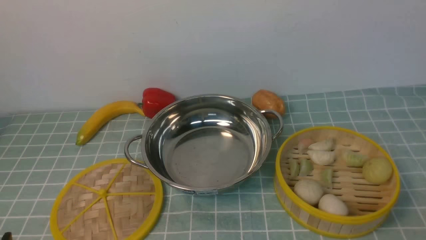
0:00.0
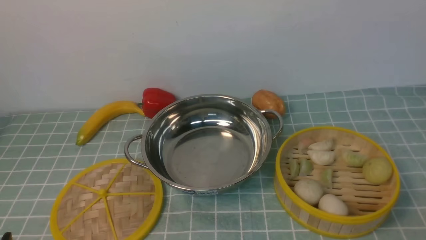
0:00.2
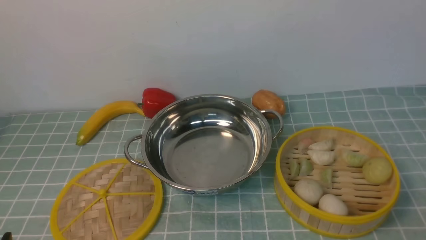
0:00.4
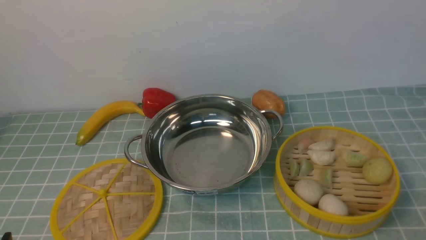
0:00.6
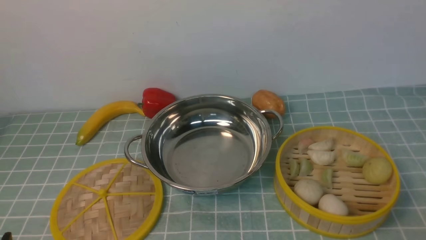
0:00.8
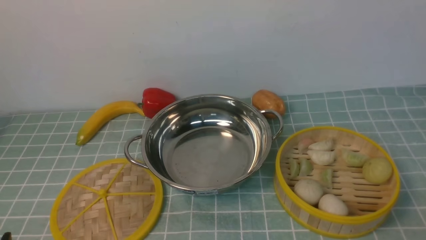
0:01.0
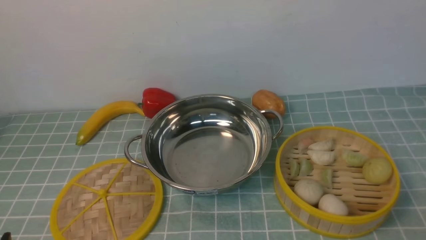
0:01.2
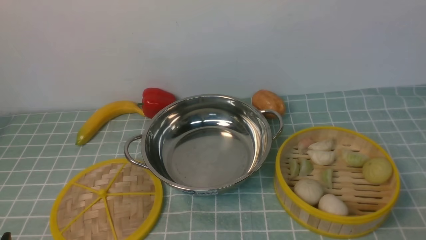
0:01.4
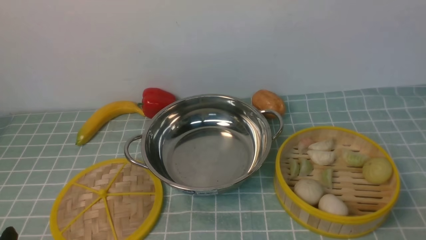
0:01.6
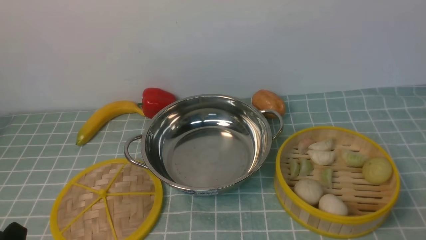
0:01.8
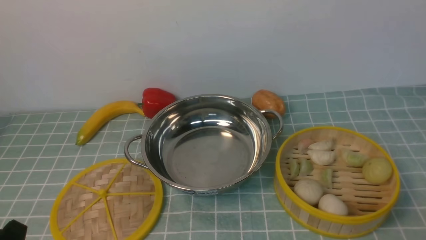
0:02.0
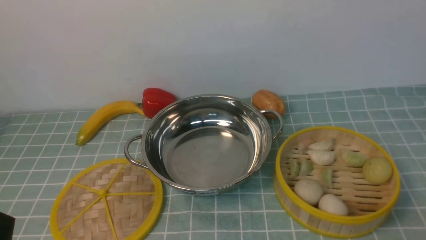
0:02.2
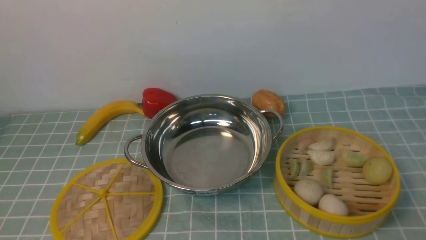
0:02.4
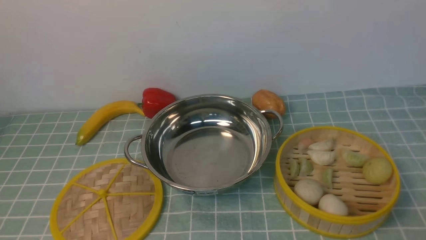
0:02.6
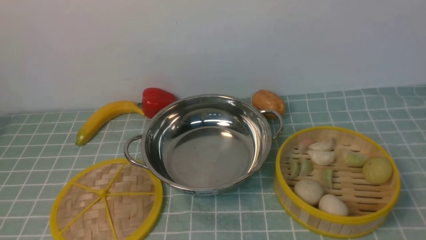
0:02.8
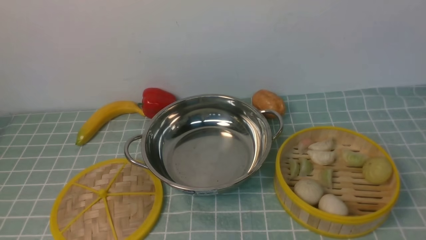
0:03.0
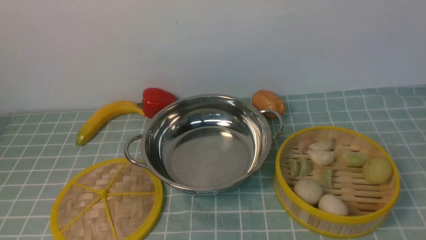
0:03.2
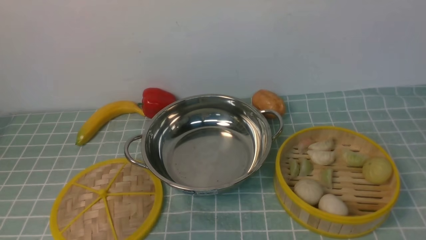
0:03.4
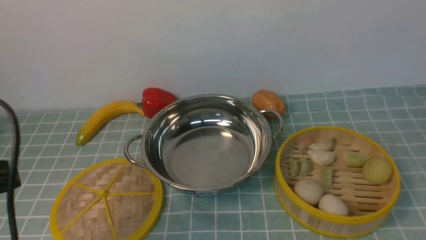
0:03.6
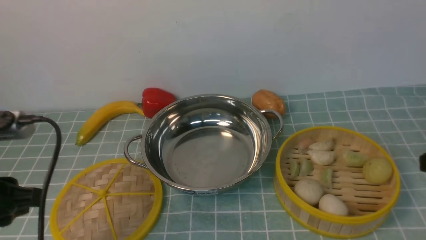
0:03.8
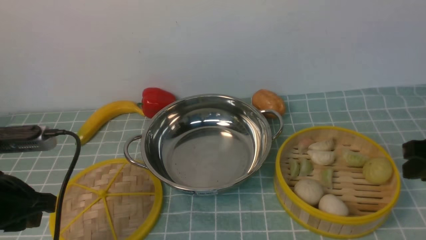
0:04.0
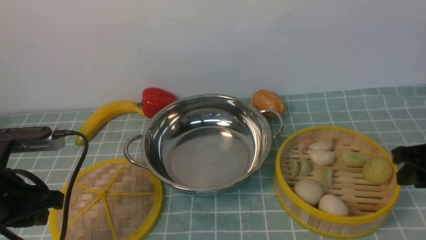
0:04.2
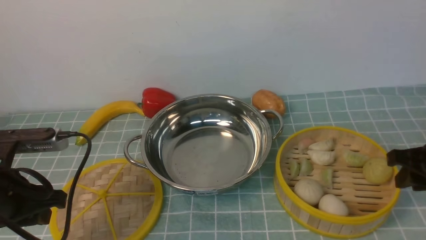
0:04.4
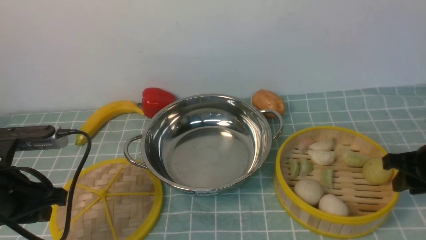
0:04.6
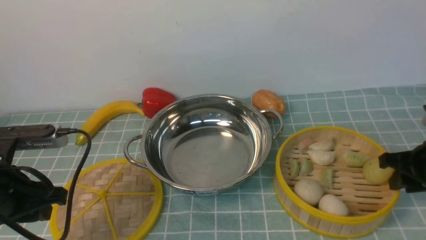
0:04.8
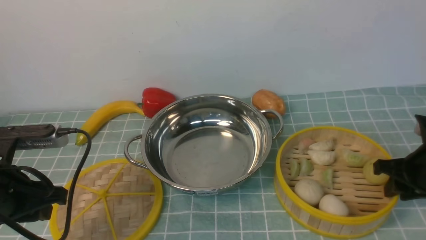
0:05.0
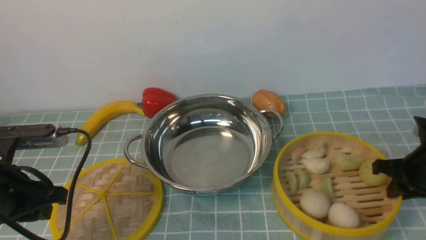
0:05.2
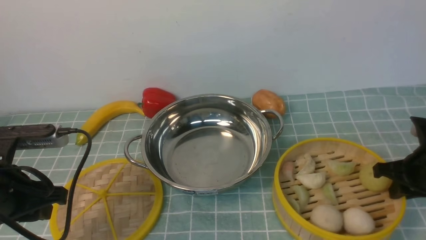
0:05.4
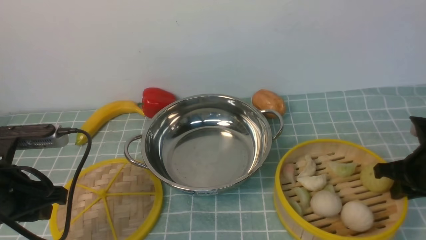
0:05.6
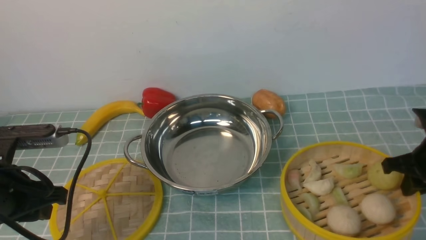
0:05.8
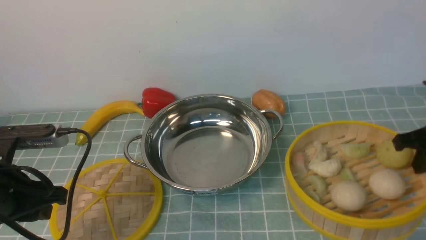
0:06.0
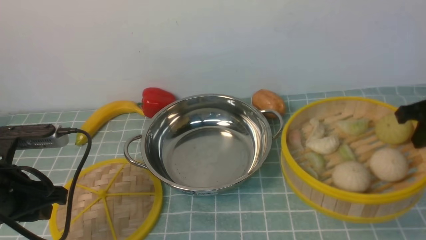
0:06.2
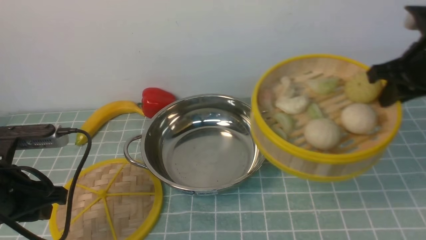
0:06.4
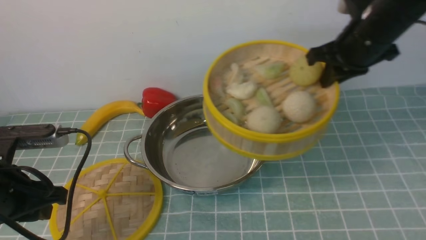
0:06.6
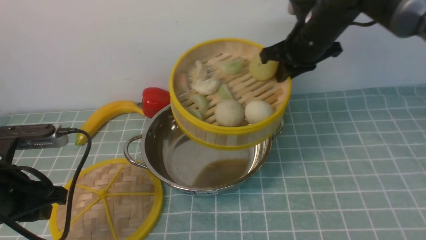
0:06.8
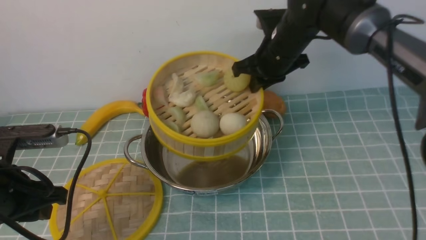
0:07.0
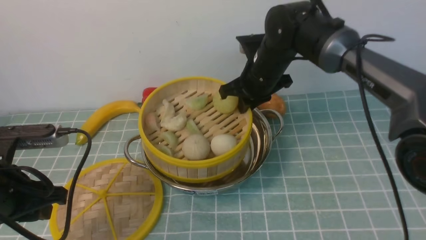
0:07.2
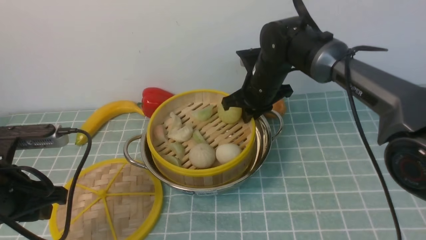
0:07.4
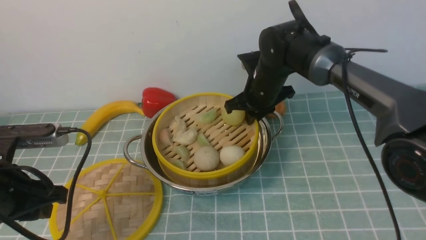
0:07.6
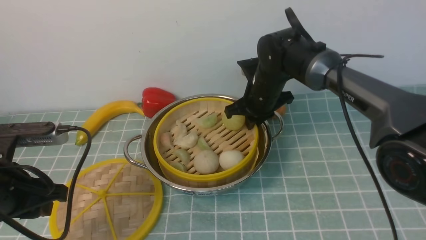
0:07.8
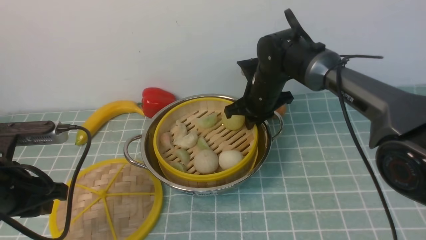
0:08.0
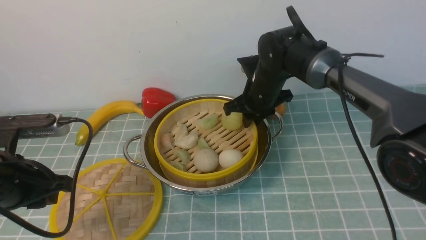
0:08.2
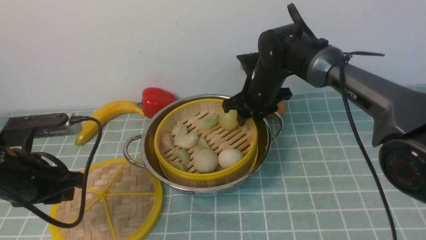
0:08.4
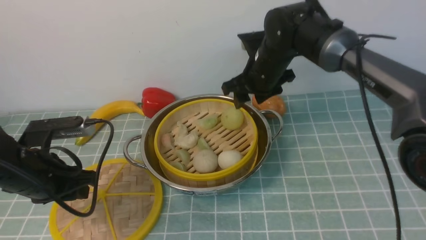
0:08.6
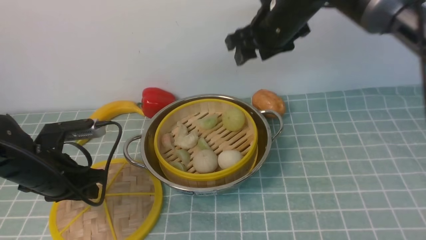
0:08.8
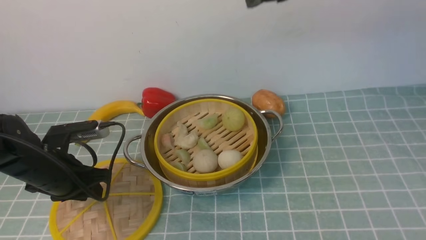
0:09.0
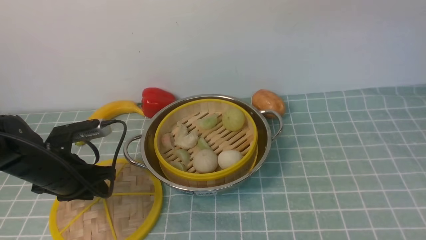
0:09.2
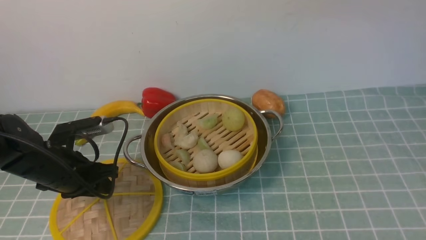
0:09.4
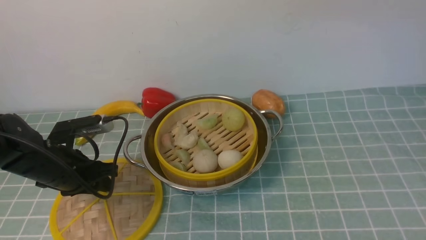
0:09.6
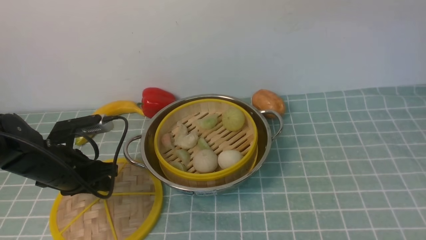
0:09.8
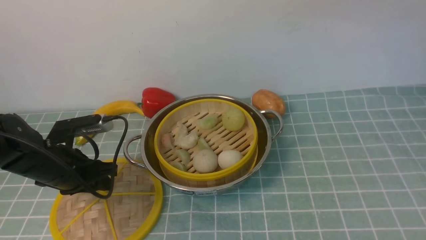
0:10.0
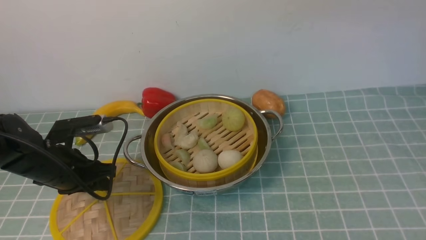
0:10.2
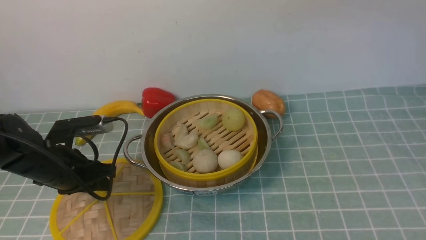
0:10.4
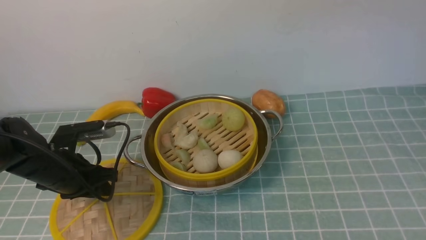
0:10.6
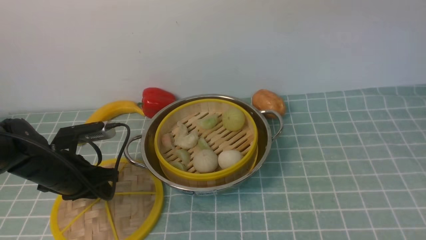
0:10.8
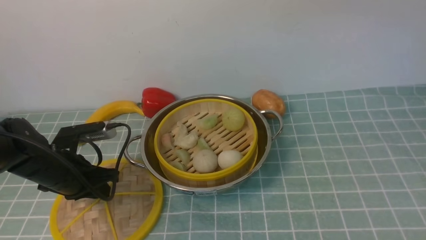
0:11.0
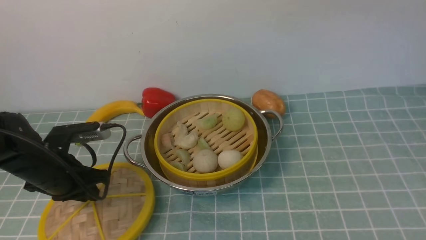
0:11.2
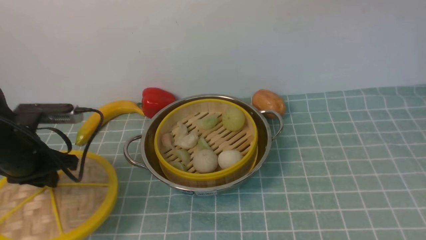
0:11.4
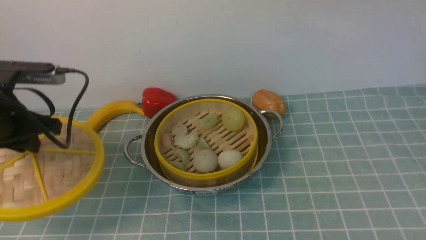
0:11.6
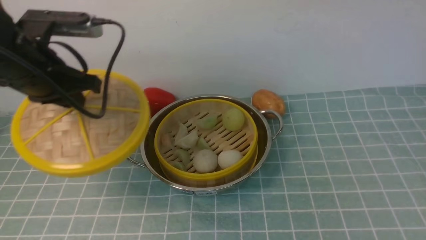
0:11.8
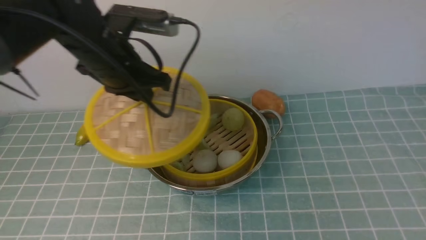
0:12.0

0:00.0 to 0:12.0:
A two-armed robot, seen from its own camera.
Task of the whole recording: place the steamer in the pot on the blue tablecloth, and put the lid on the steamer.
Step, 0:00.0 to 0:05.8: use the right arm to lift the steamer closest to it.
Step, 0:06.0 to 0:09.0: use the right arm to put the steamer into the iron steamer pot in the middle.
Step, 0:09.2 to 0:11.6: use the left arm to lift the lid of the steamer.
0:03.0 to 0:04.4: The grippers both shift forward by some 20 cm.
0:04.4 to 0:06.0: The right gripper closes up.
0:06.0 to 0:07.6: The right gripper heads to the left and forward, covering some 30 cm.
0:07.6 to 0:09.0: The right gripper moves upward, roughly 20 cm, and opens up; the left gripper goes roughly 10 cm forward and downward.
0:10.4 to 0:12.0: The left gripper shifts about 15 cm upward and to the right. Meanwhile the right gripper moves backward, upward and to the right, roughly 10 cm.

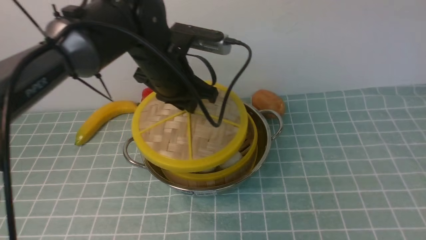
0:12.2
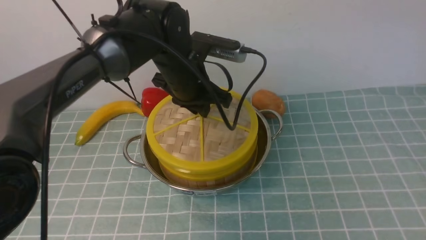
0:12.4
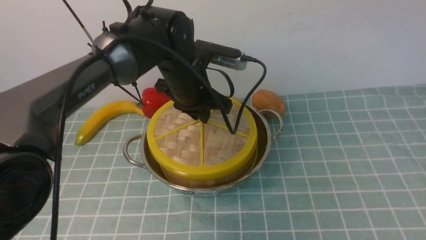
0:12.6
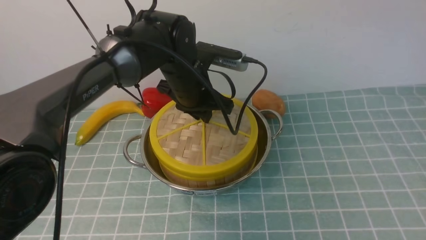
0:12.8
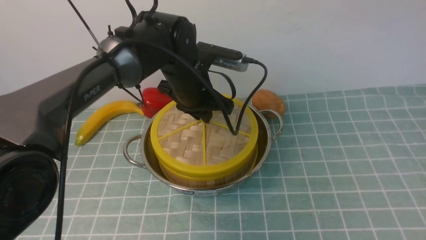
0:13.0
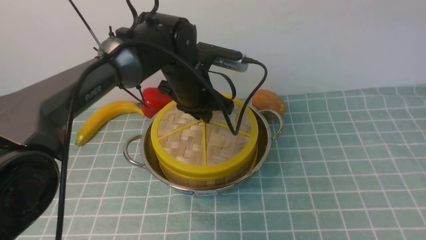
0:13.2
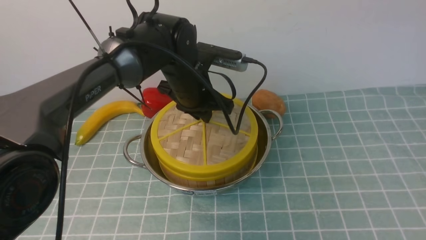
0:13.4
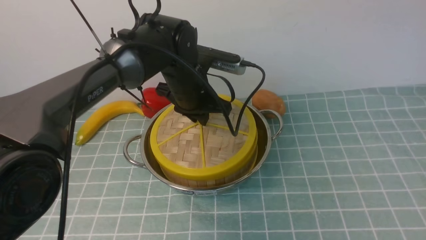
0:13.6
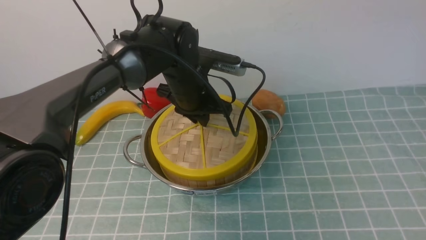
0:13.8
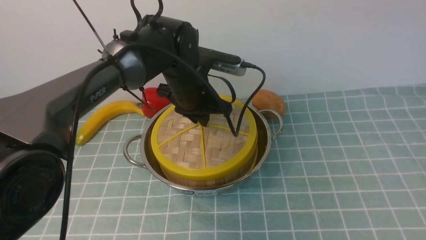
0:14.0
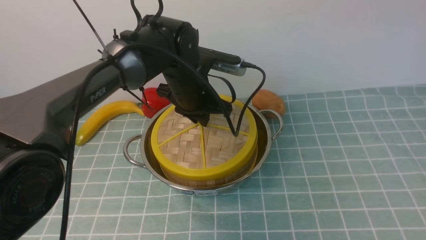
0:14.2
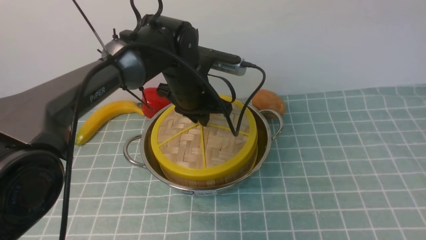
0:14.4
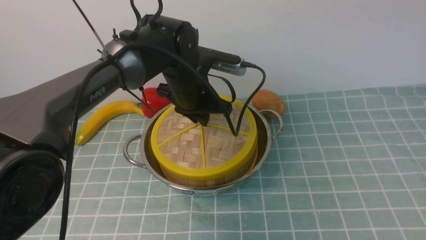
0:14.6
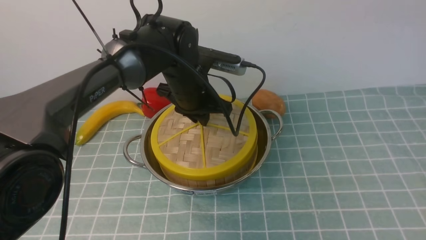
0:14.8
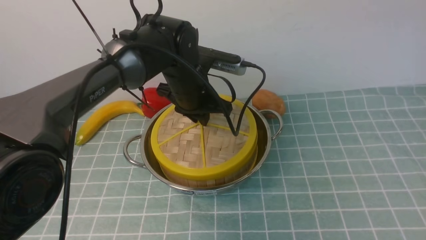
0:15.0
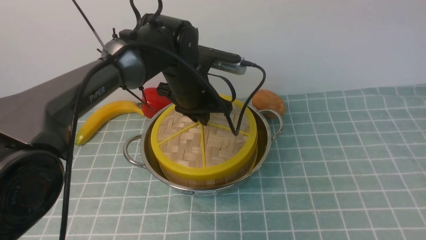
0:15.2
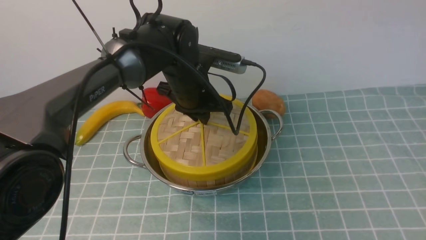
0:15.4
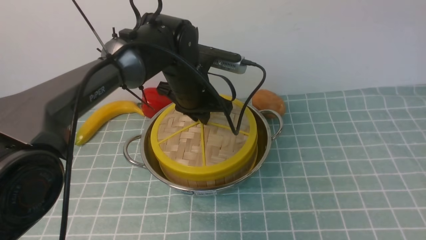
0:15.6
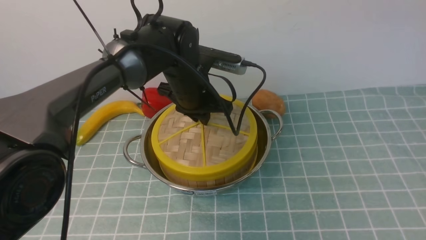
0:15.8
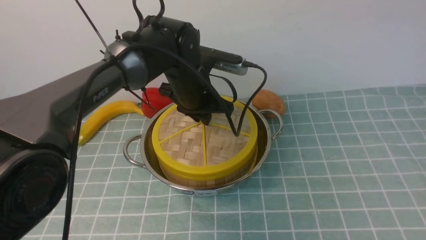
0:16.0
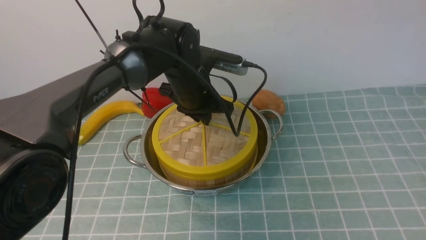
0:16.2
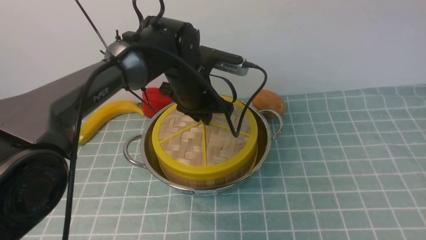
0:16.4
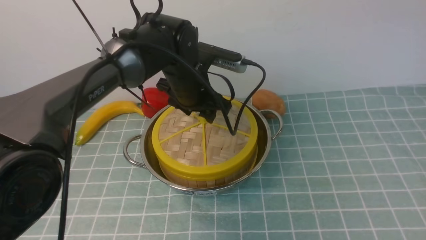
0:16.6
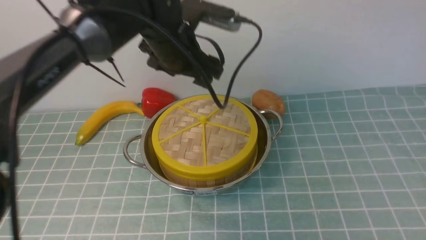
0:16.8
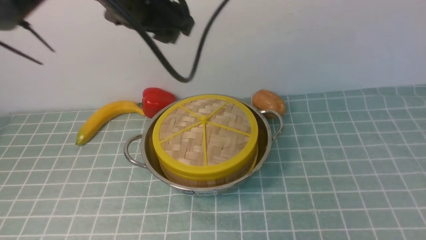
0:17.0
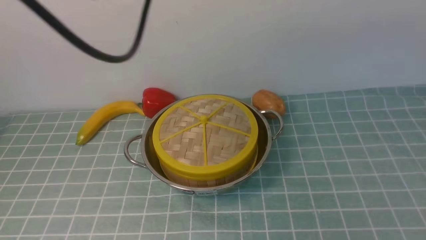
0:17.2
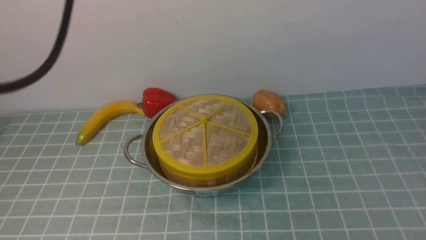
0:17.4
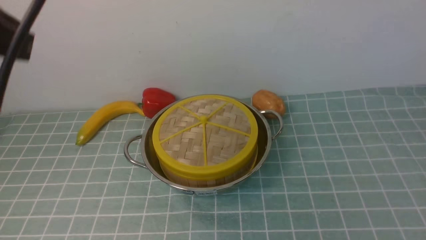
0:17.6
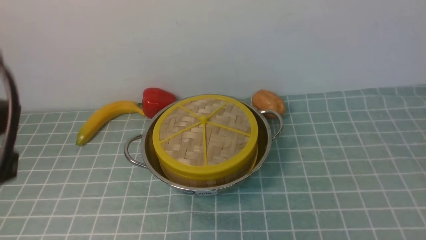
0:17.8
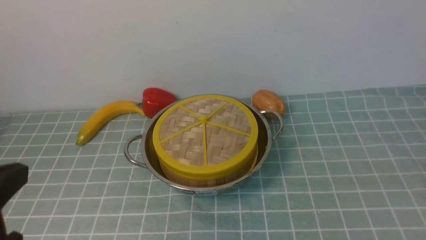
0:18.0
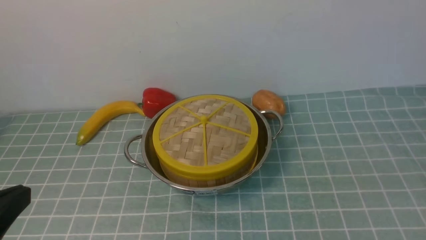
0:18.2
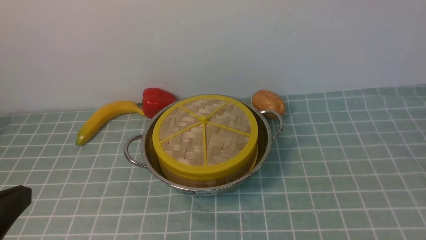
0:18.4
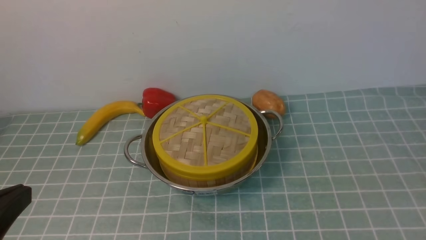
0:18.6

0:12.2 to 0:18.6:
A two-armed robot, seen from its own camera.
Task of the whole recording: place the steamer in the pot on the blue tablecloth, and put the lid on the steamer.
Step, 0:12.2 to 0:17.0: use the left arm to place the steamer lid on the steamer.
0:12.2 to 0:13.8: The left gripper heads downward and to the right, covering about 10 cm.
0:13.8 to 0:15.4: The two grippers keep their place.
0:15.4 to 0:17.0: The left gripper moves upward, some 15 cm, and opens up.
0:17.0 to 0:18.6: The left gripper is displaced backward and to the left by some 35 cm, and closes up. Meanwhile the right gripper moves downward, backward and to the right, some 30 cm, and closes up.
